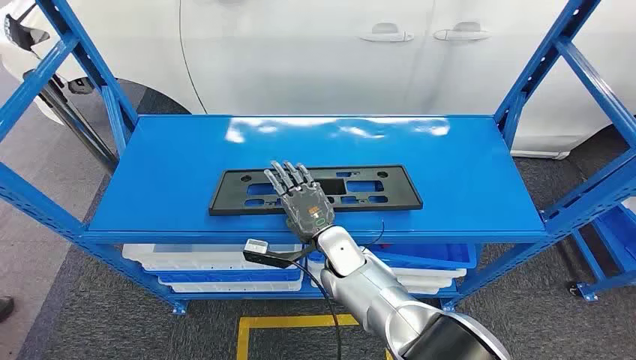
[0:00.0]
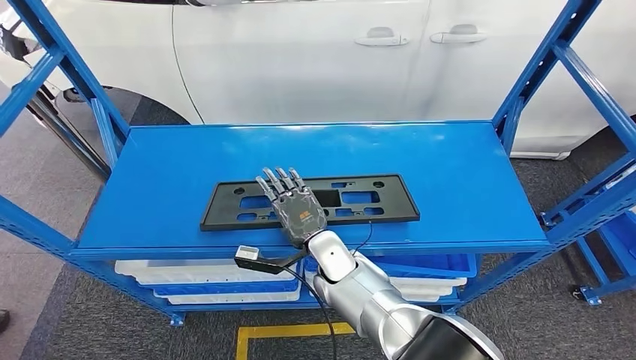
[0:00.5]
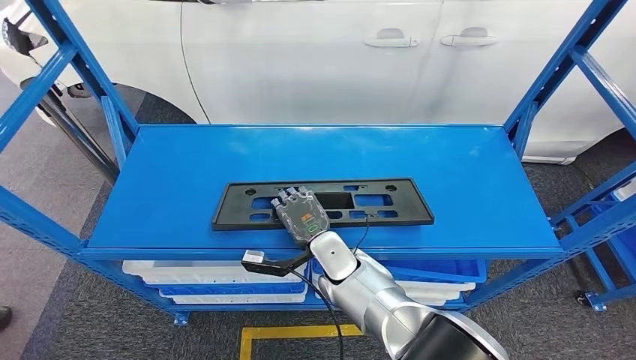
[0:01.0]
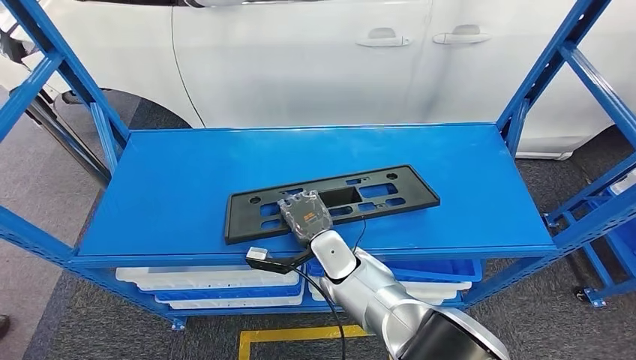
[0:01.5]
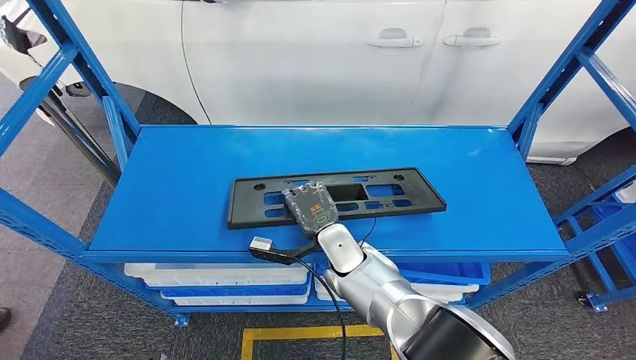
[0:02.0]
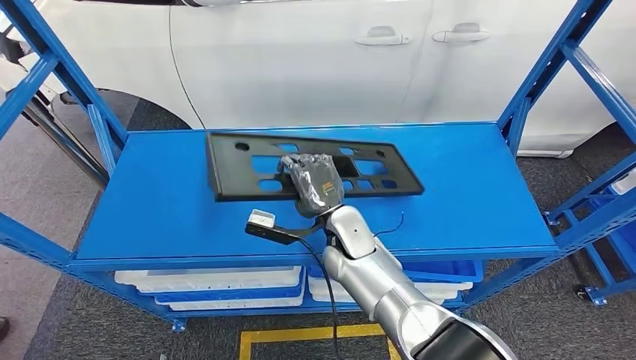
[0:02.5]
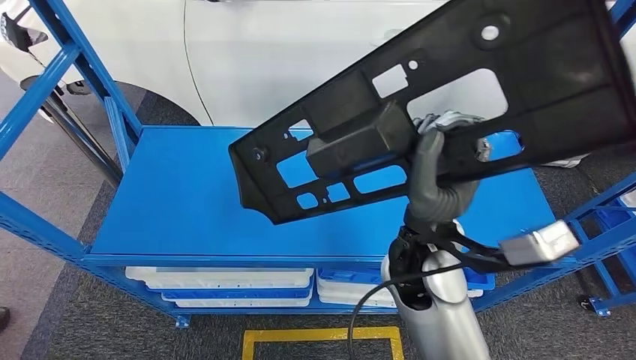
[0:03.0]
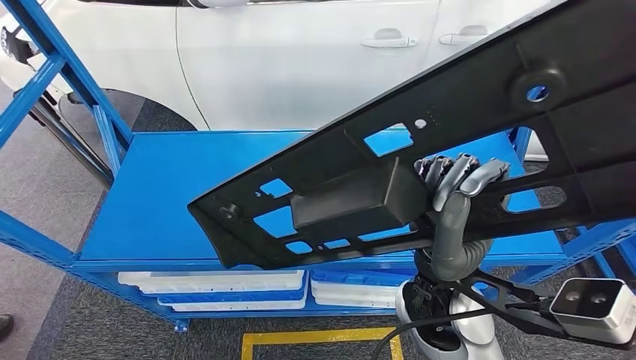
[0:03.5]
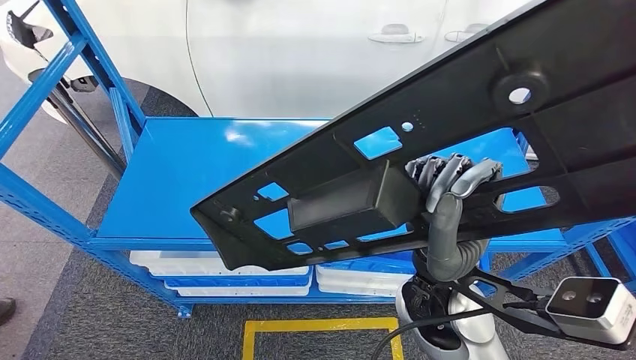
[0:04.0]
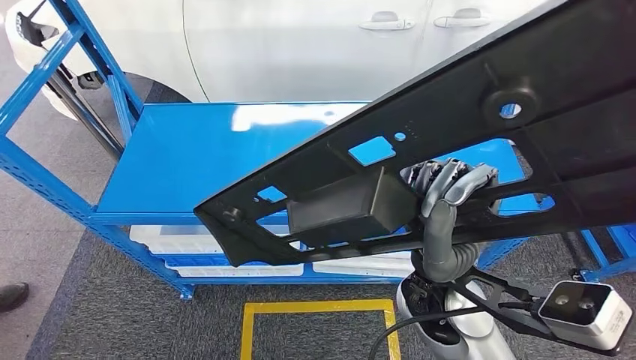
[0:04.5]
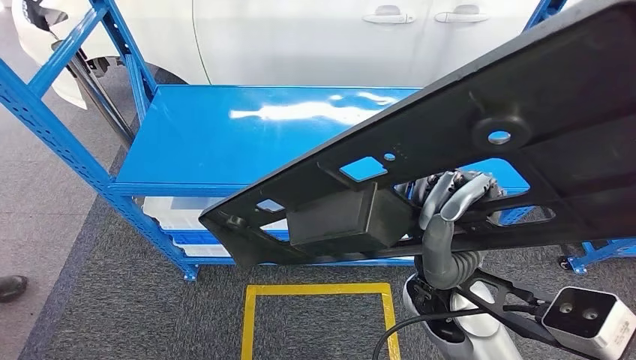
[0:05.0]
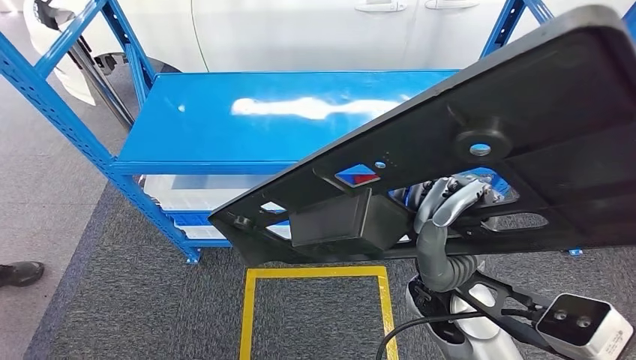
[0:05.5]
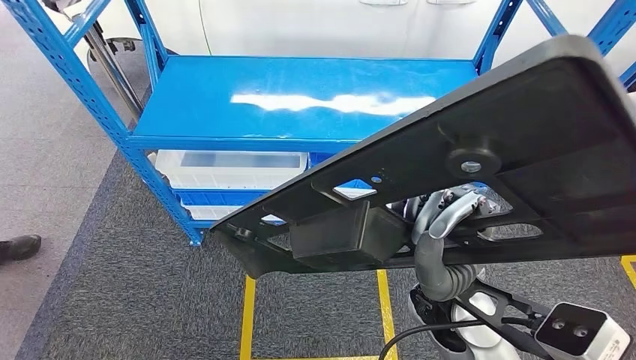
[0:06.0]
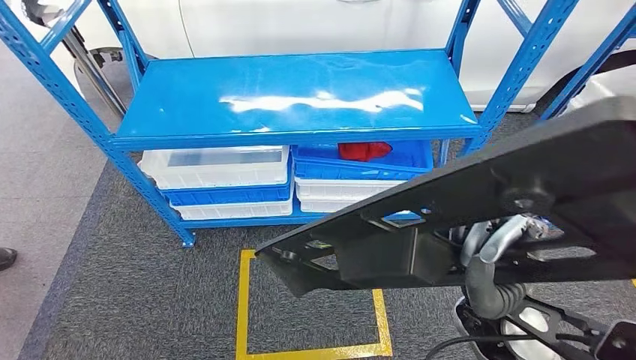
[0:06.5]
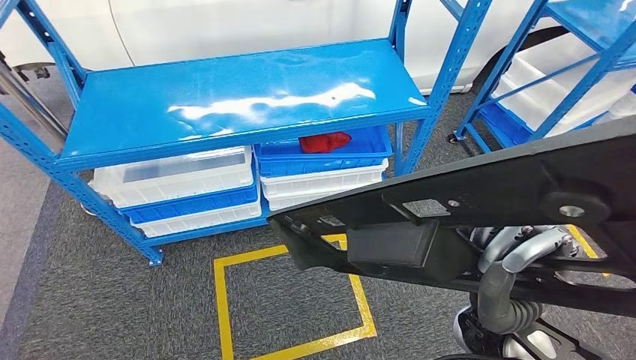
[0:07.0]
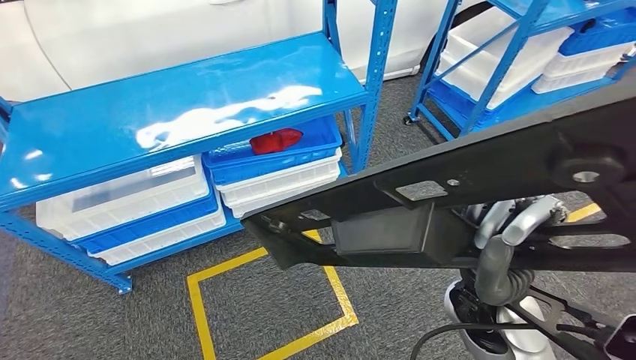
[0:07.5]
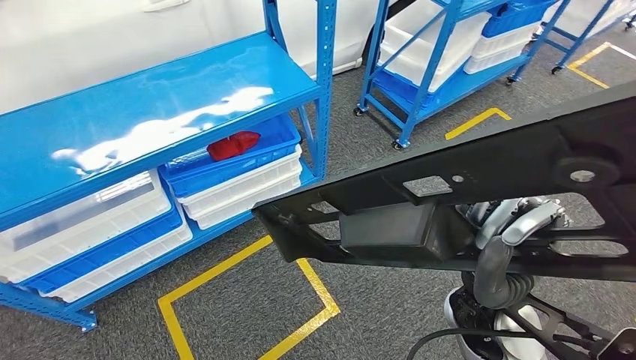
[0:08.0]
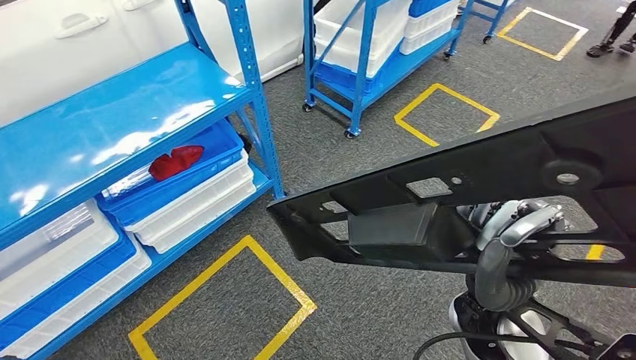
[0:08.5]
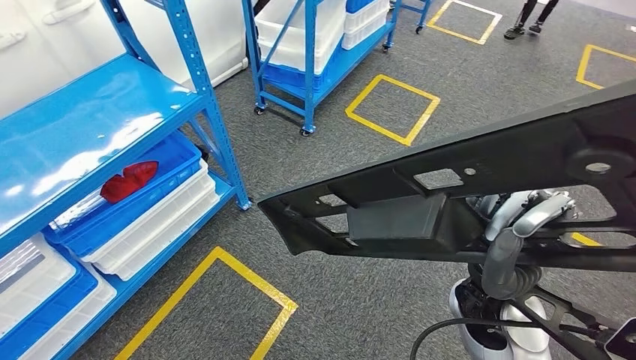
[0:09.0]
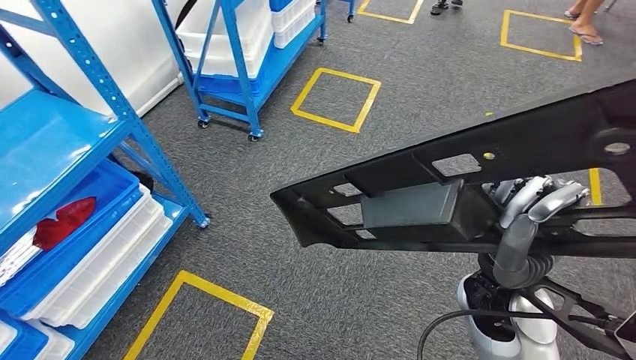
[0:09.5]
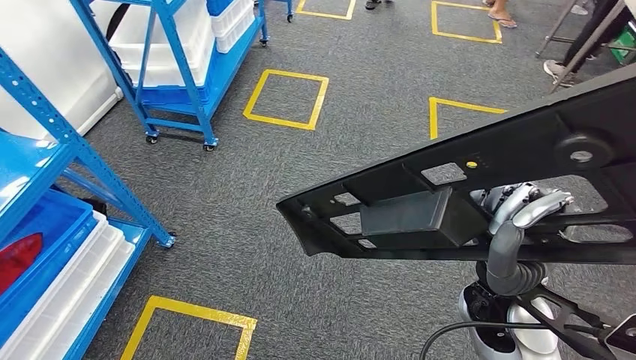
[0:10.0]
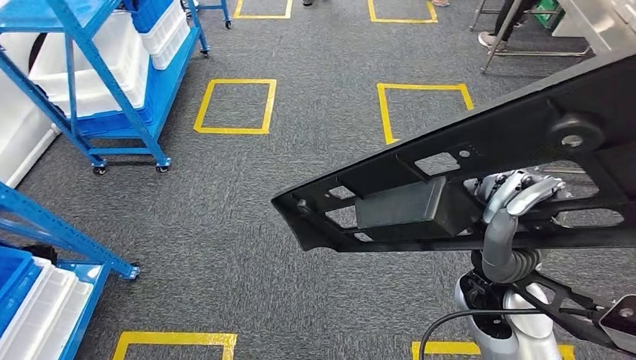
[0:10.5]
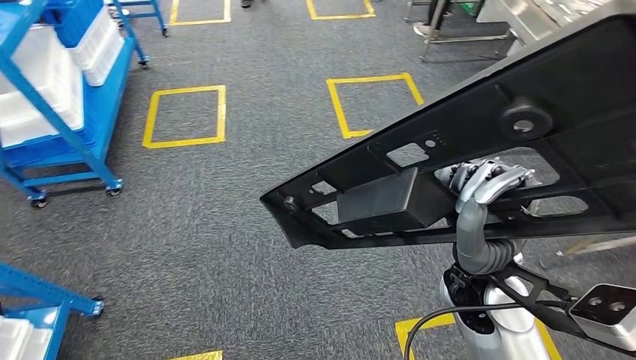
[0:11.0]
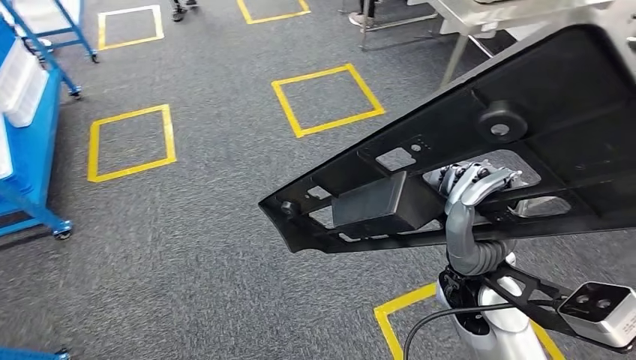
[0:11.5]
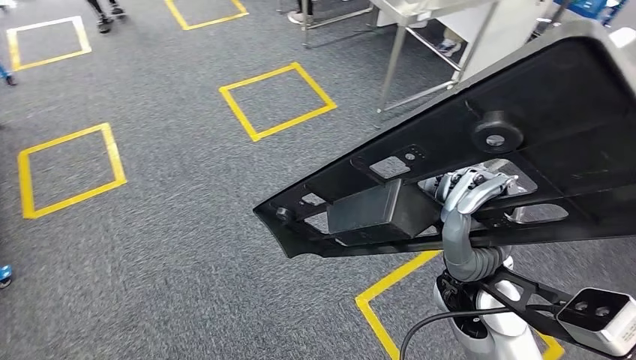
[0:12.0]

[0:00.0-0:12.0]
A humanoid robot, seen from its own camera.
Step, 0:00.0 to 0:03.5: Pick up the large material from the shelf.

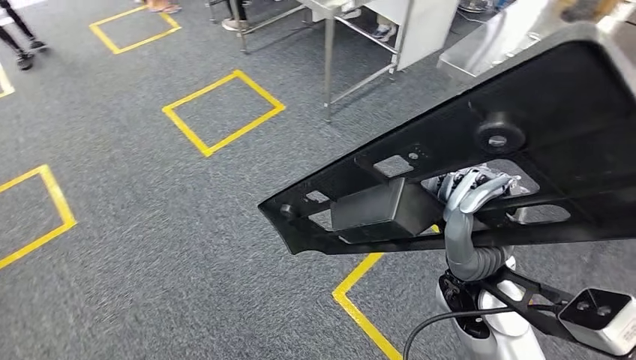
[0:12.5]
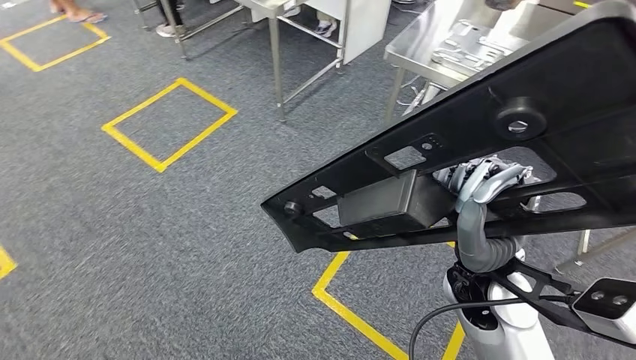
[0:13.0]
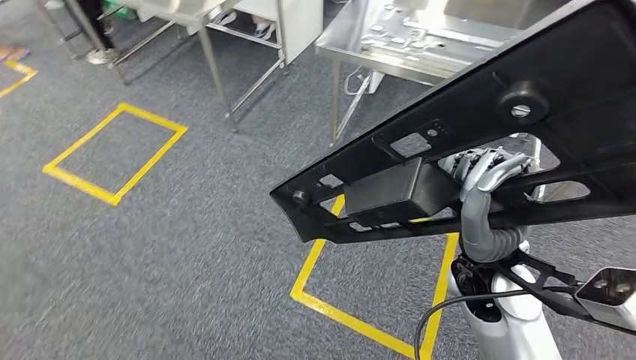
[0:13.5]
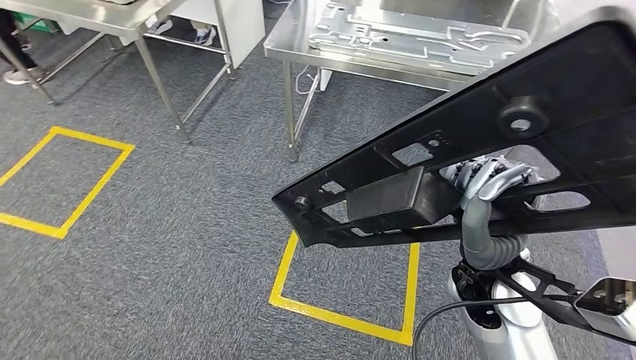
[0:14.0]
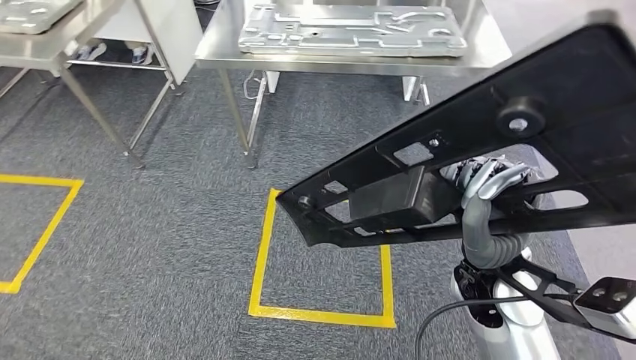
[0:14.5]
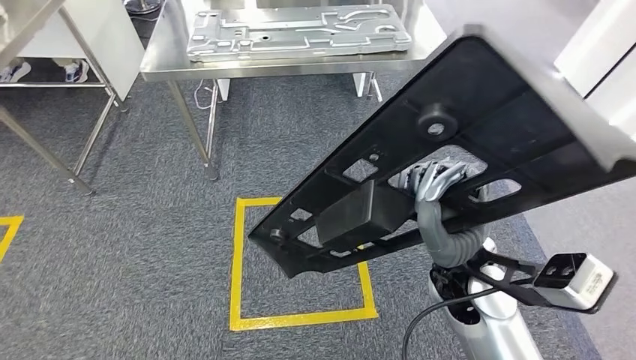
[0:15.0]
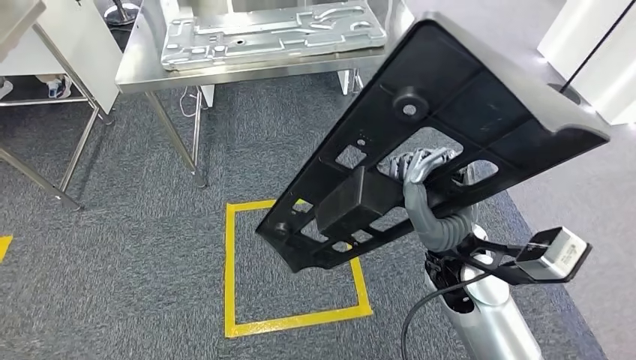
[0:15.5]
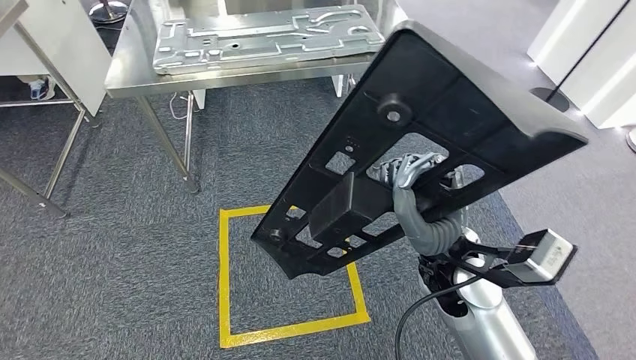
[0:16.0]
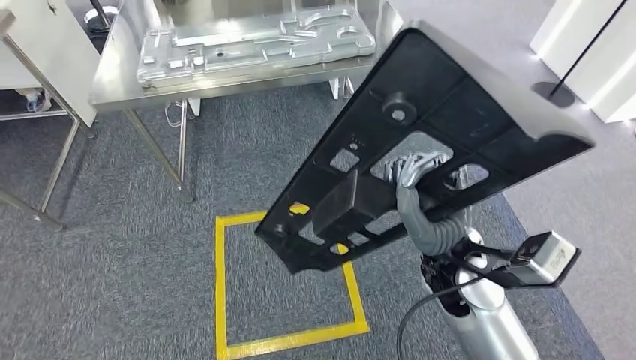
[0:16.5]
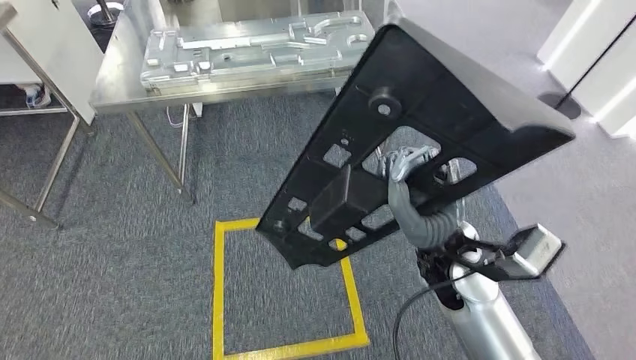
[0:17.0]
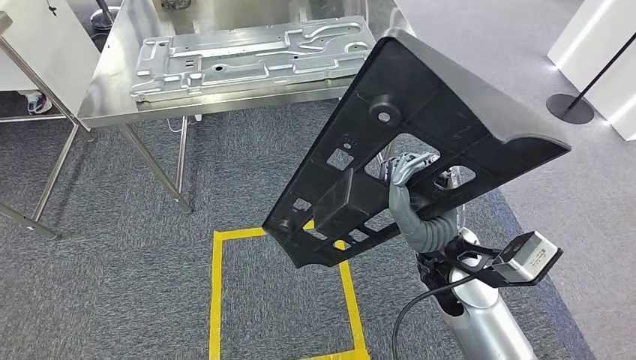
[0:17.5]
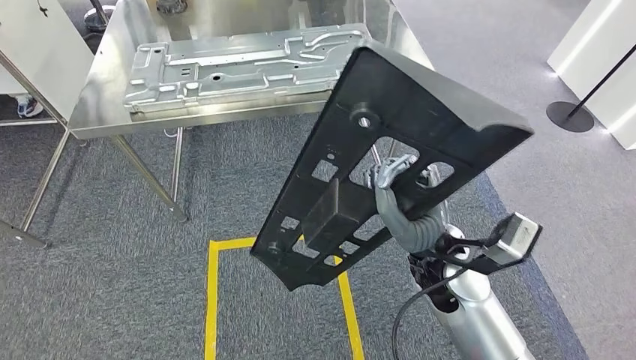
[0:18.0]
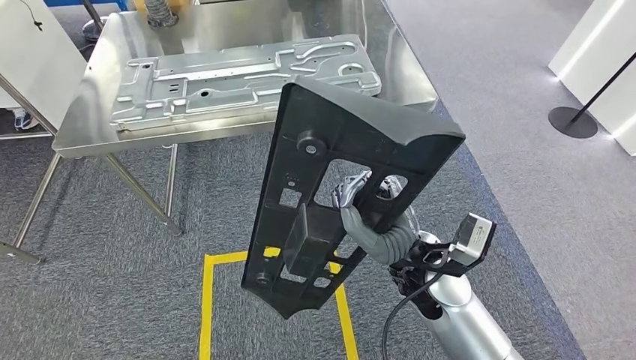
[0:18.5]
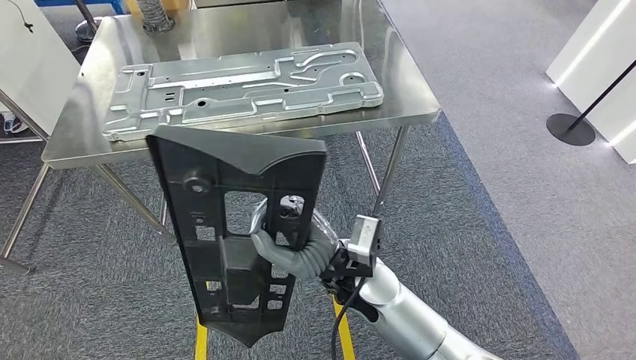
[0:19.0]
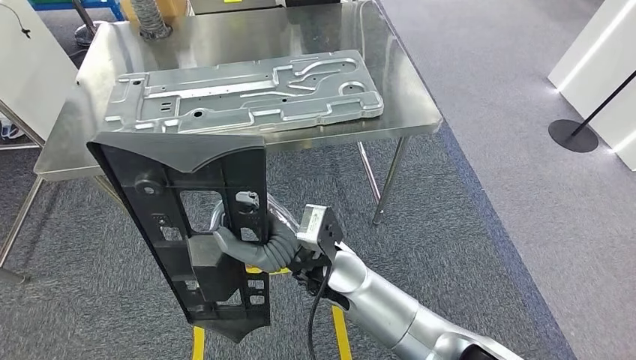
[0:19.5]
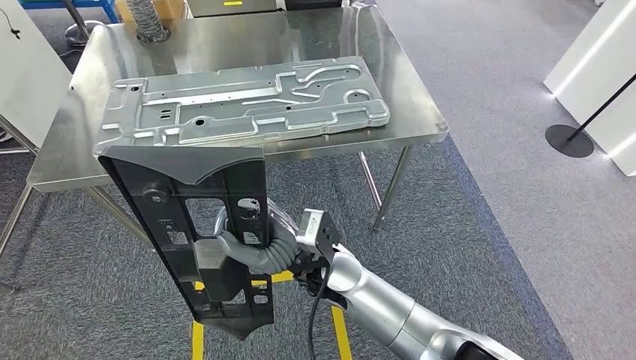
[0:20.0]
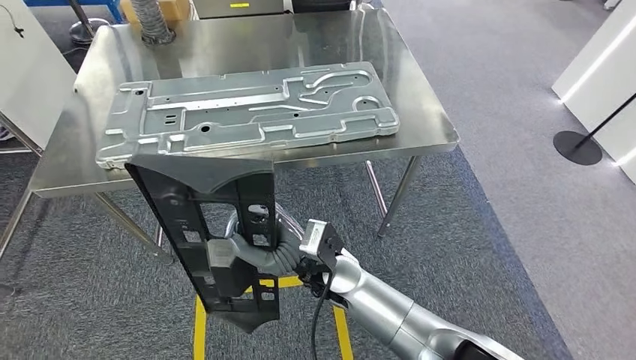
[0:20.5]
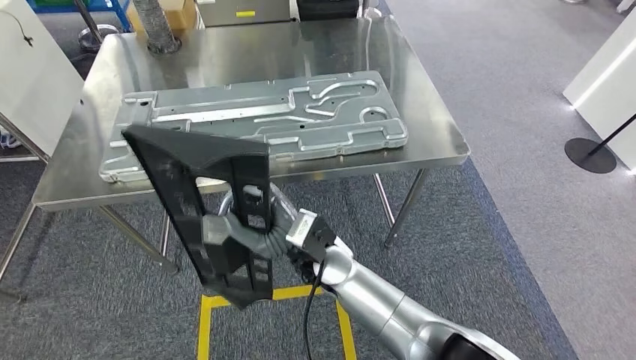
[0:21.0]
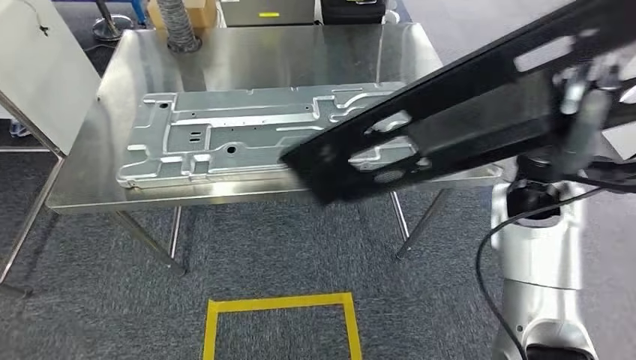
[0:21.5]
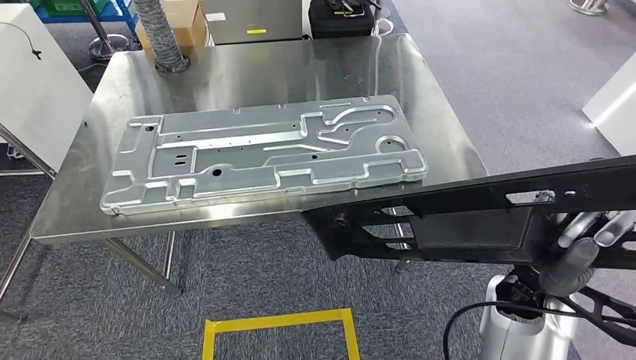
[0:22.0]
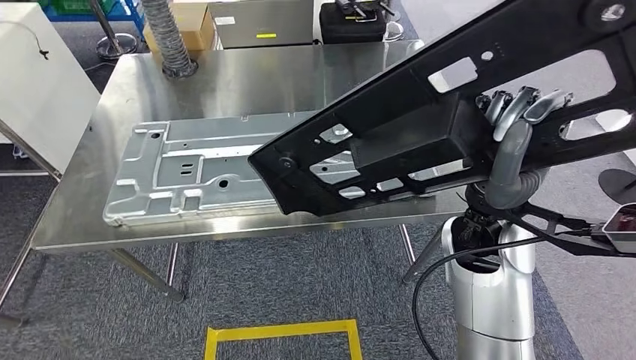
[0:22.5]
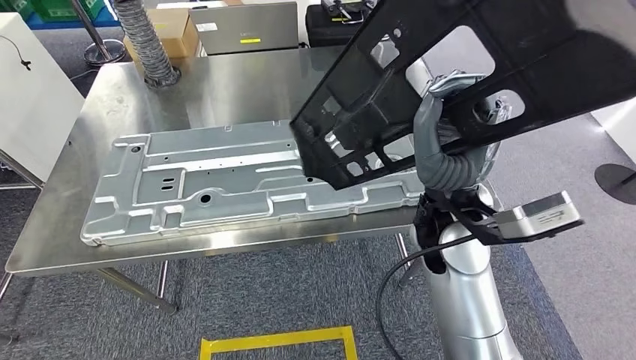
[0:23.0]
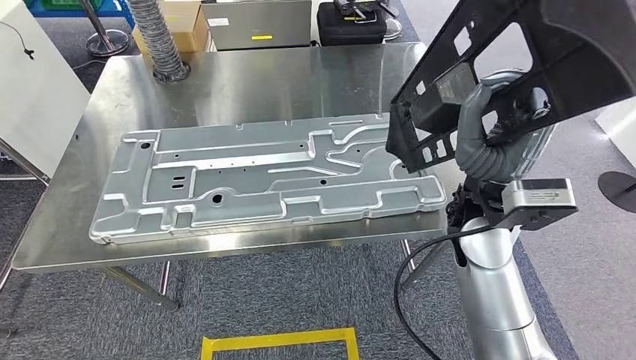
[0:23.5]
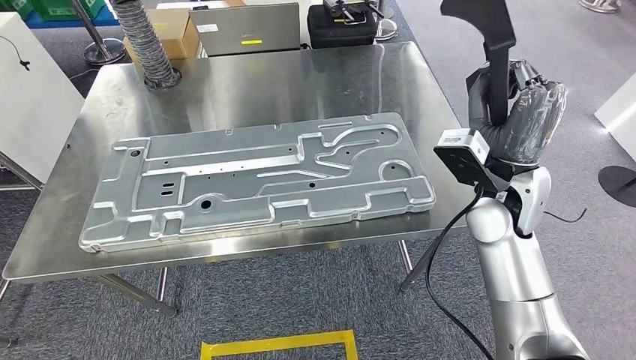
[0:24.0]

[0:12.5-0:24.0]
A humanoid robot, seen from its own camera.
Step, 0:12.5 to 0:22.0: Move the large material to the front of the workbench.
